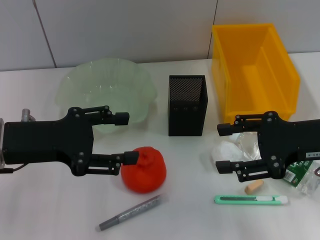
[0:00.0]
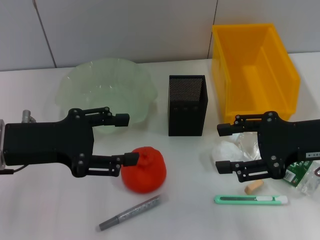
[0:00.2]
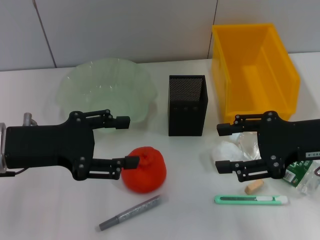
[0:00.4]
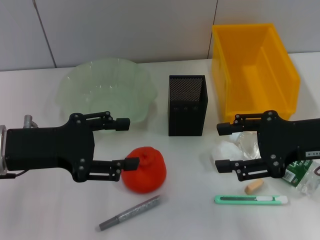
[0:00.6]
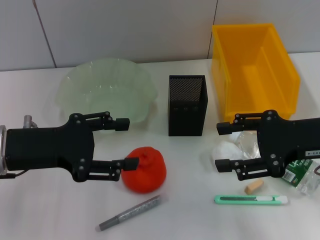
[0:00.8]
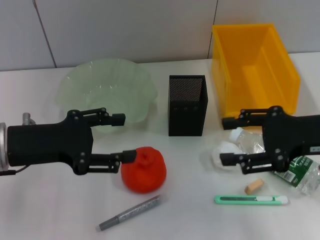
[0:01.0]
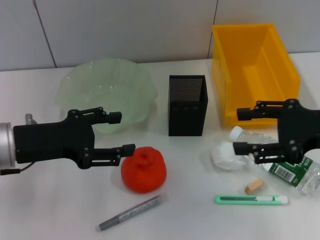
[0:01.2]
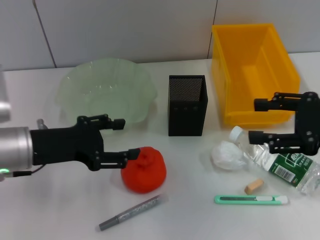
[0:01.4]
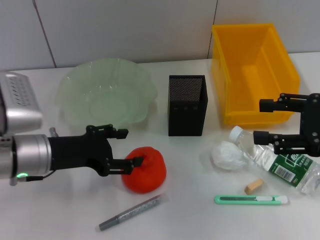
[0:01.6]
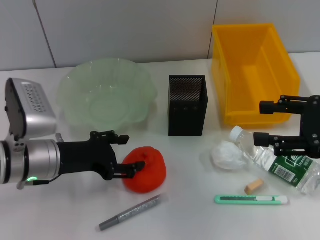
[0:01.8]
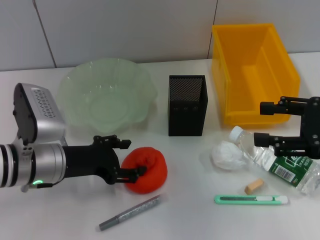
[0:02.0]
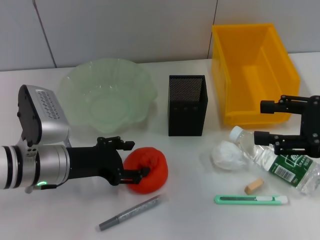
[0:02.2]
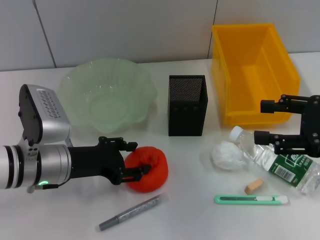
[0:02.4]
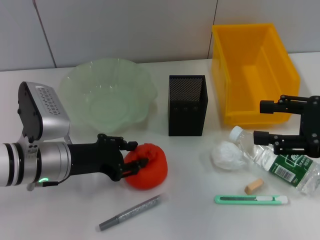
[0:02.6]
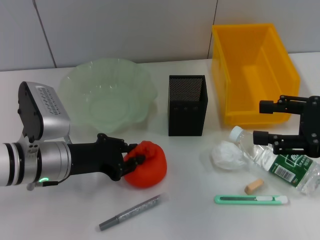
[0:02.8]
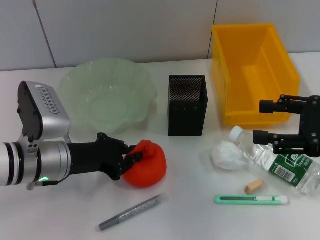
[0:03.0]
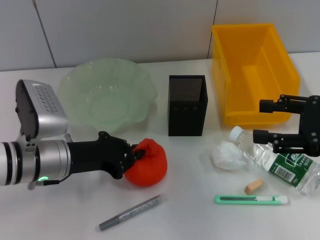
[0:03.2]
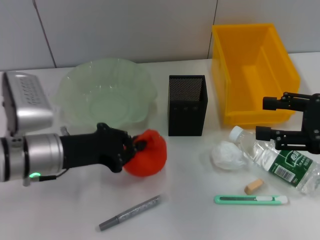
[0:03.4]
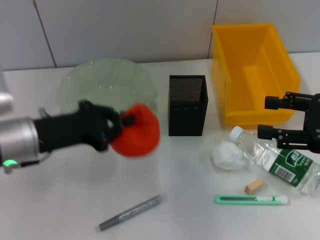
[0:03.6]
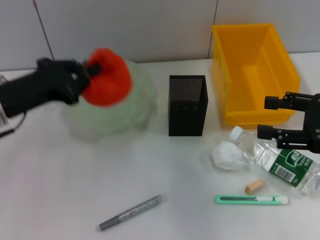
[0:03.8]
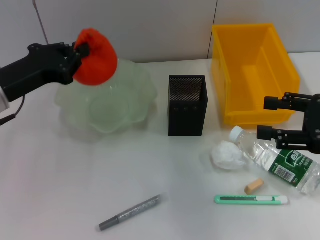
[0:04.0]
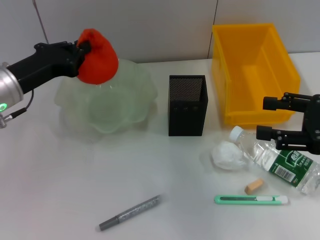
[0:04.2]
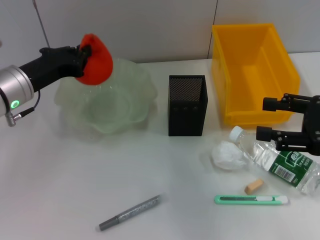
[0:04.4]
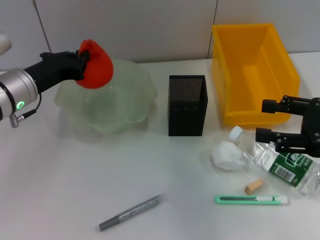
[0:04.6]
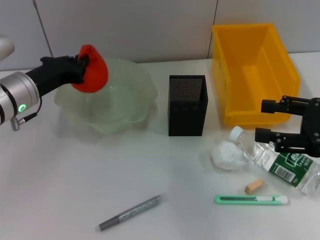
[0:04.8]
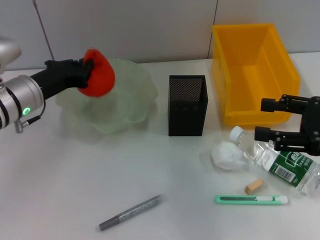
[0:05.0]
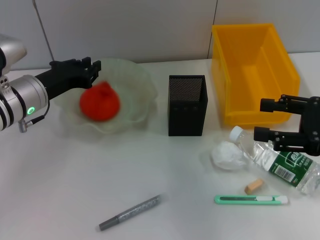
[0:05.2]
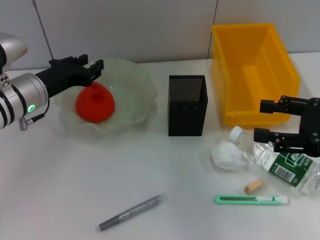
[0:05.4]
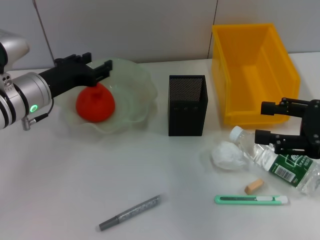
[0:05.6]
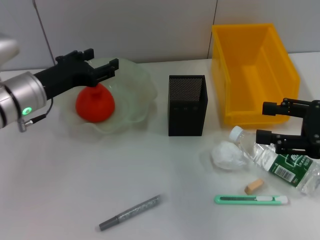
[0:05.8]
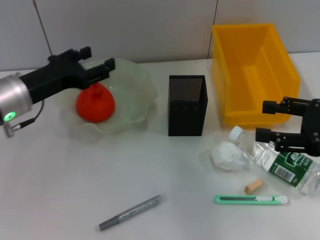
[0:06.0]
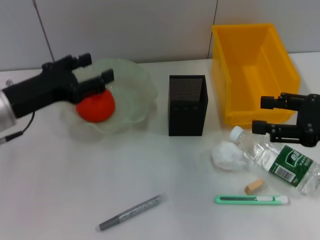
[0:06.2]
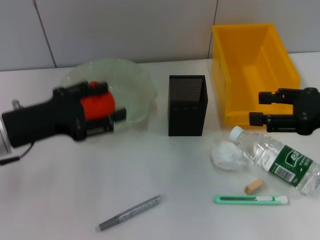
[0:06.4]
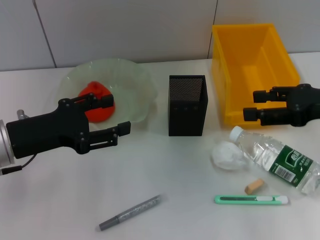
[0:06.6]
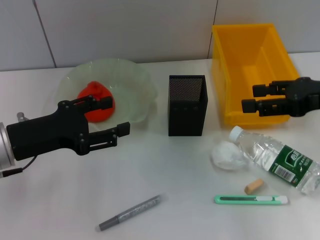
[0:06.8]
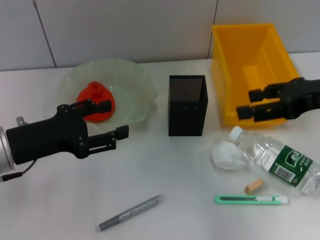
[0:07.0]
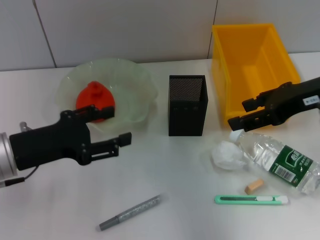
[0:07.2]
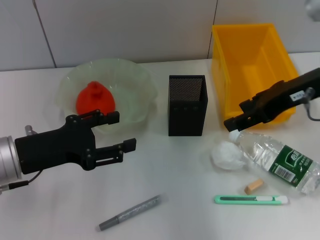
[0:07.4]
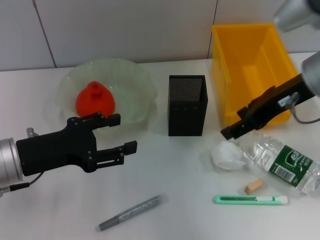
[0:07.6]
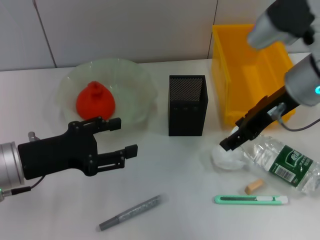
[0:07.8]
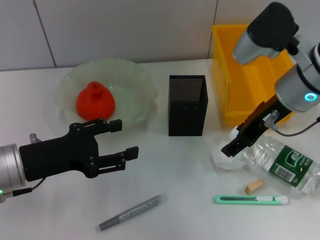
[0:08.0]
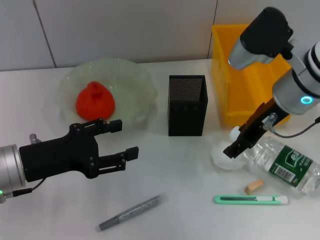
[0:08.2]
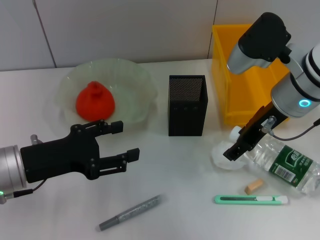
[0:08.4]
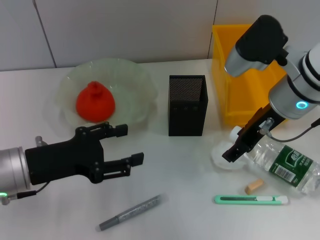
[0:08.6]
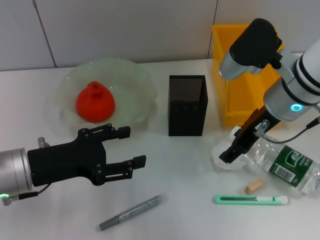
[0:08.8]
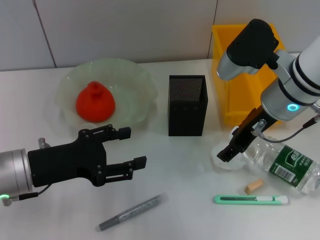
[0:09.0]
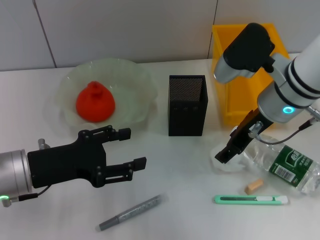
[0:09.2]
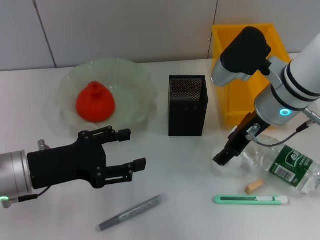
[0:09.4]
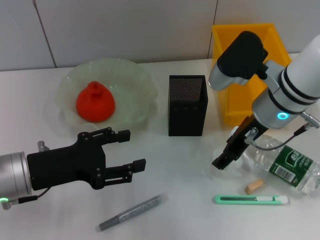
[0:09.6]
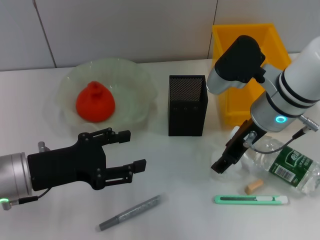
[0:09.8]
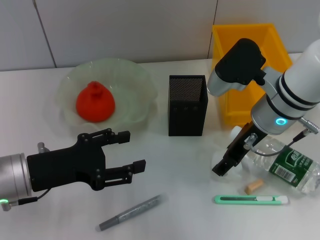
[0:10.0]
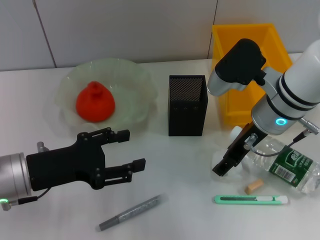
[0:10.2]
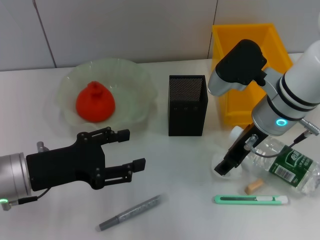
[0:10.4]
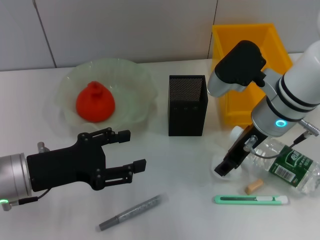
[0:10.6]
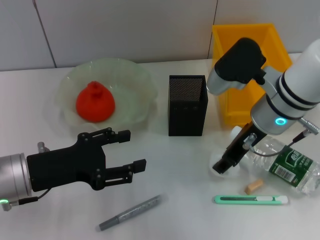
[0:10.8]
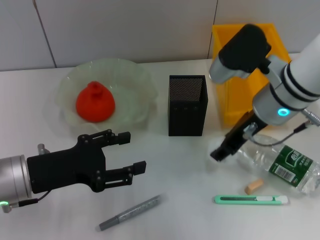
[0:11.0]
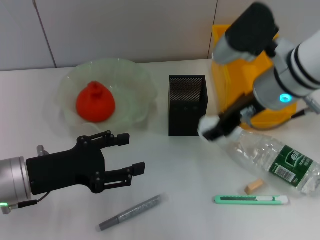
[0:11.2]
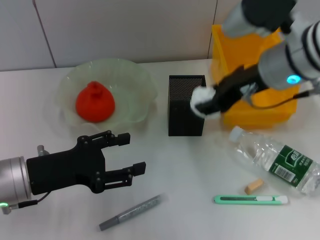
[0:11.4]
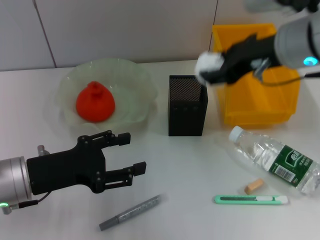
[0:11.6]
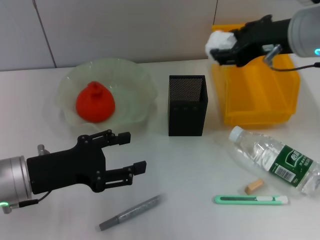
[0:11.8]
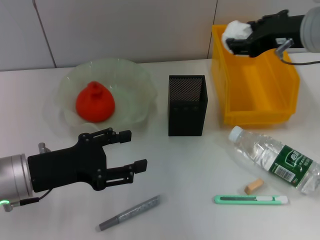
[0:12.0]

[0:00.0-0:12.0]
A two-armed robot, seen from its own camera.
Step, 0:00.0 to 0:02.8: Grab the orange with the left hand.
Step, 0:03.2 to 0:05.4: Place the orange into the fruit bowl with the left hand.
Step, 0:05.6 to 0:10.4: Grab the paper ball with the right hand.
0:00.0 to 0:01.6: The left gripper heads downward, covering some 5 cm. Meanwhile the right gripper moves about 5 cm.
0:01.6 to 0:03.0: The left gripper closes.
0:03.0 to 0:04.4: The left gripper goes approximately 5 cm forward.
0:04.4 to 0:06.0: The left gripper opens its fingers.
0:06.0 to 0:07.6: The left gripper heads backward, covering roughly 10 cm. The right gripper heads to the left, forward and upward, covering about 15 cm.
0:07.6 to 0:09.0: The right gripper ends up some 5 cm from where it was.
0:09.0 to 0:10.4: The grippers stay close to where they were, moving slightly.
0:10.4 to 0:12.0: The right gripper goes about 10 cm upward and to the right.

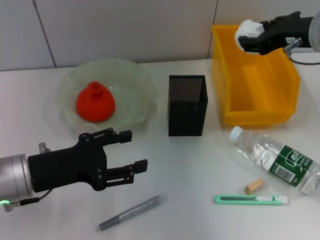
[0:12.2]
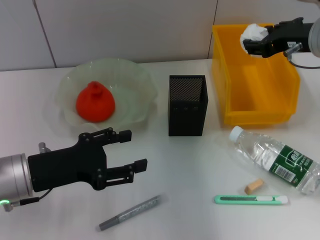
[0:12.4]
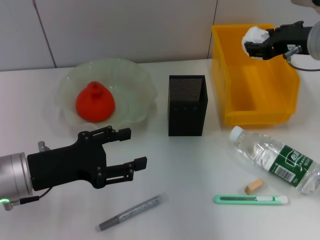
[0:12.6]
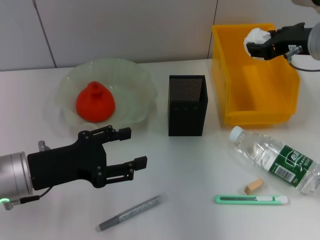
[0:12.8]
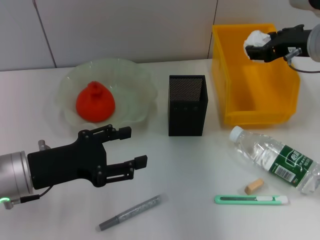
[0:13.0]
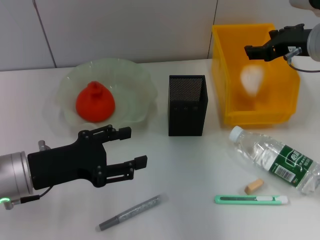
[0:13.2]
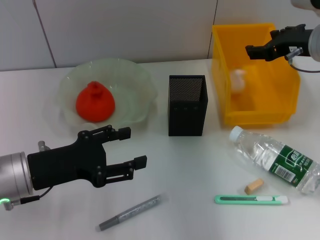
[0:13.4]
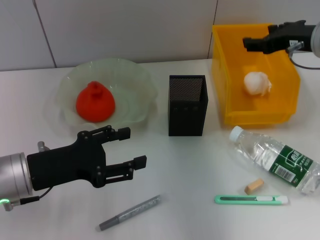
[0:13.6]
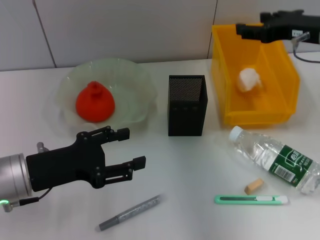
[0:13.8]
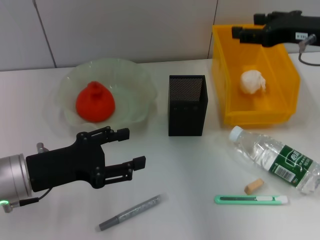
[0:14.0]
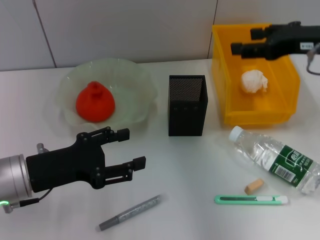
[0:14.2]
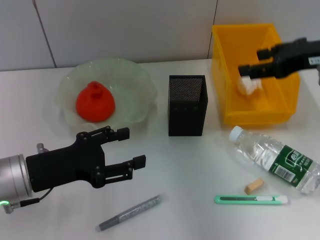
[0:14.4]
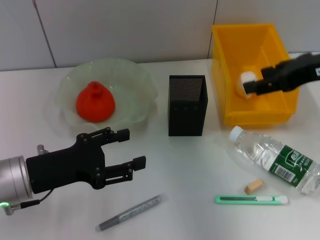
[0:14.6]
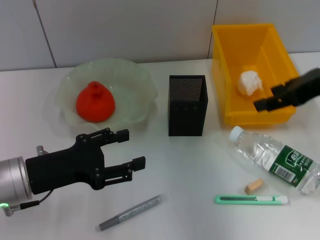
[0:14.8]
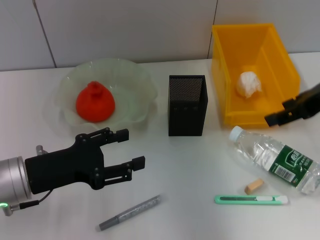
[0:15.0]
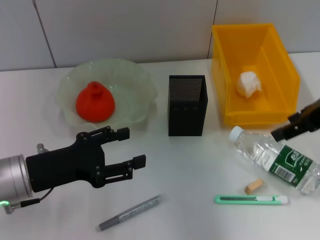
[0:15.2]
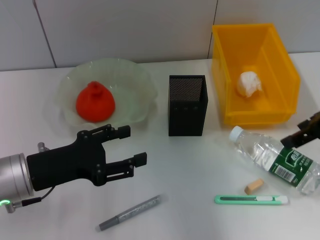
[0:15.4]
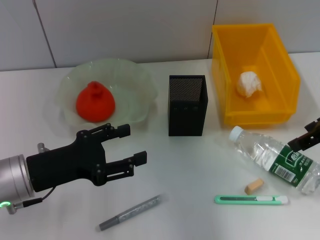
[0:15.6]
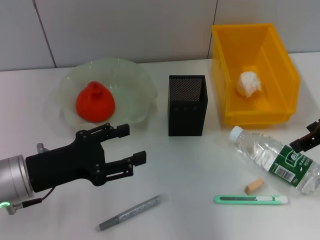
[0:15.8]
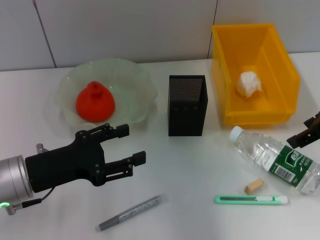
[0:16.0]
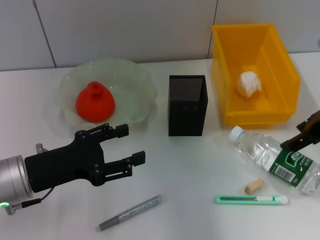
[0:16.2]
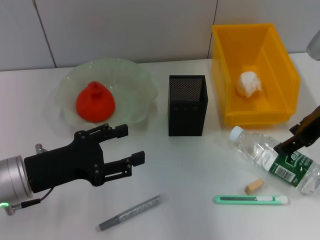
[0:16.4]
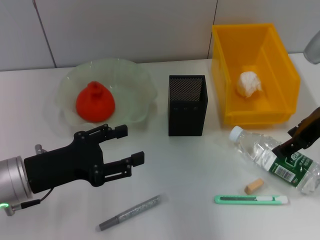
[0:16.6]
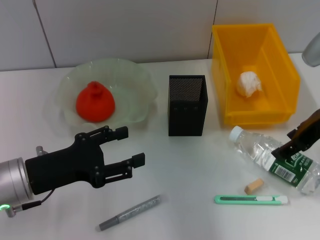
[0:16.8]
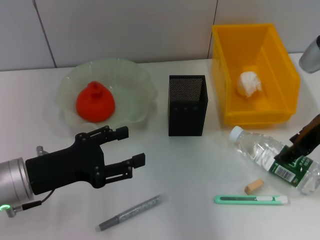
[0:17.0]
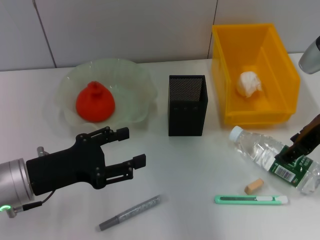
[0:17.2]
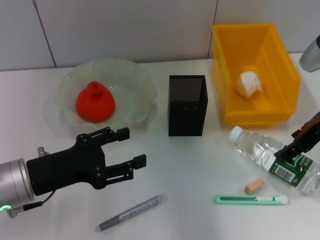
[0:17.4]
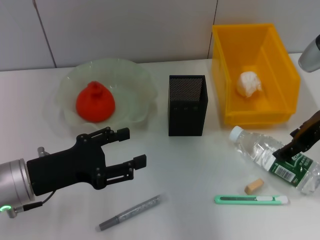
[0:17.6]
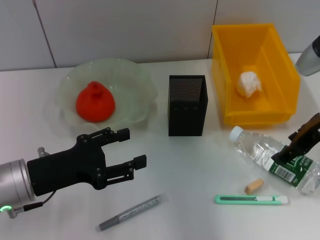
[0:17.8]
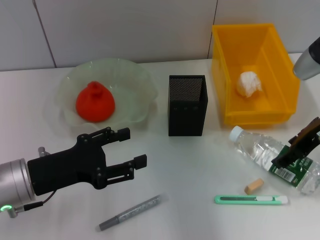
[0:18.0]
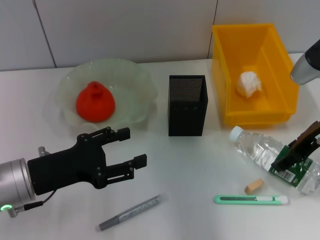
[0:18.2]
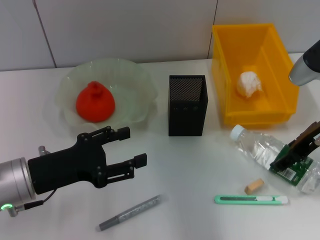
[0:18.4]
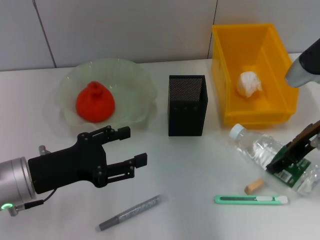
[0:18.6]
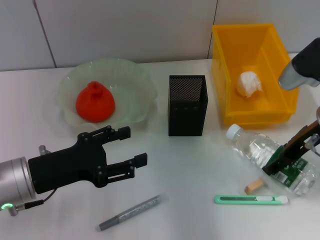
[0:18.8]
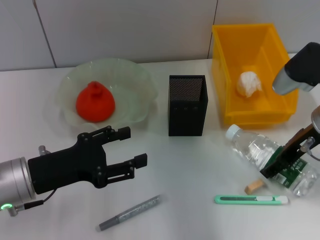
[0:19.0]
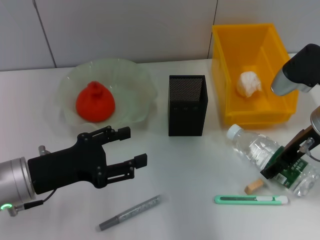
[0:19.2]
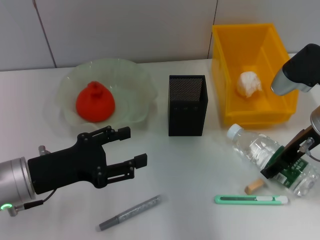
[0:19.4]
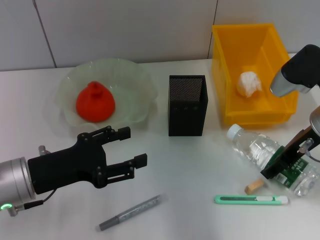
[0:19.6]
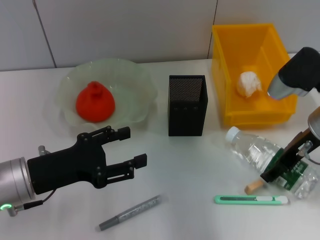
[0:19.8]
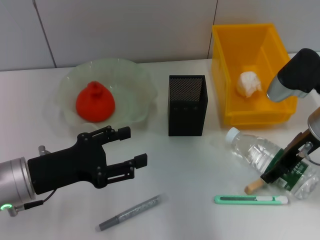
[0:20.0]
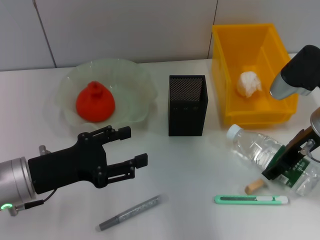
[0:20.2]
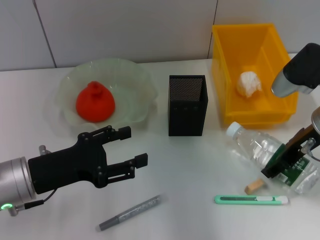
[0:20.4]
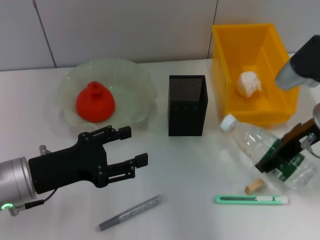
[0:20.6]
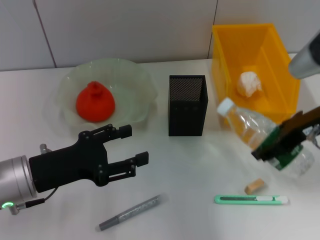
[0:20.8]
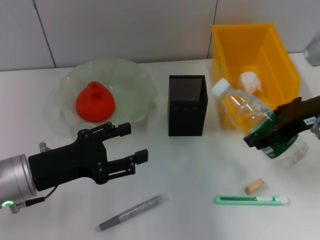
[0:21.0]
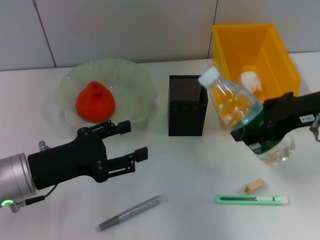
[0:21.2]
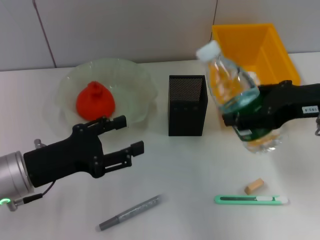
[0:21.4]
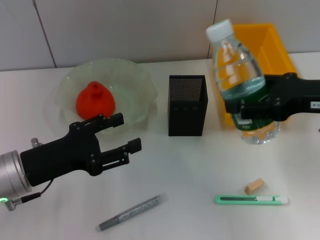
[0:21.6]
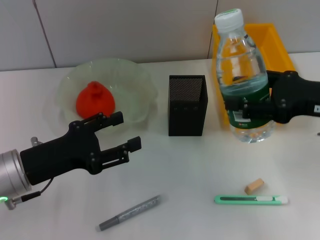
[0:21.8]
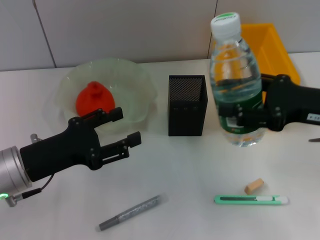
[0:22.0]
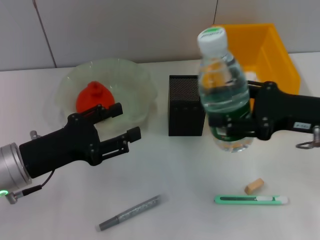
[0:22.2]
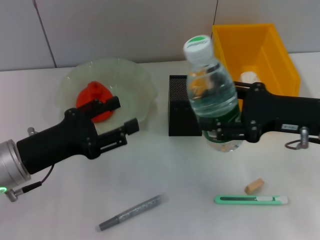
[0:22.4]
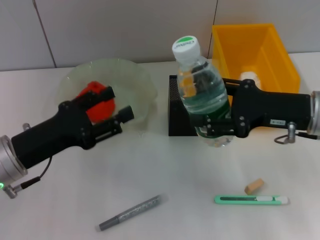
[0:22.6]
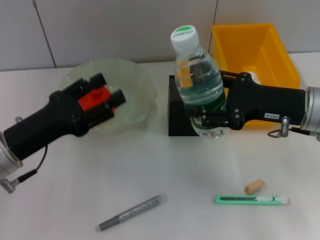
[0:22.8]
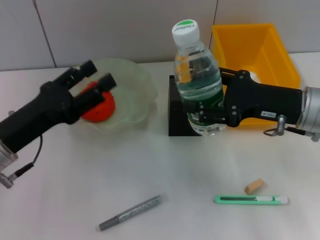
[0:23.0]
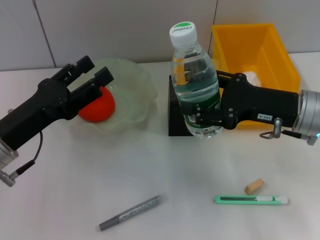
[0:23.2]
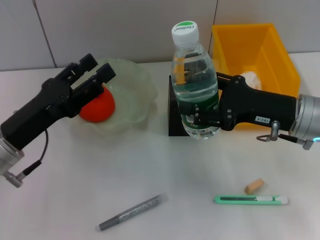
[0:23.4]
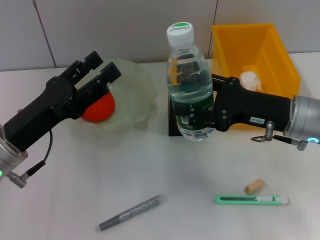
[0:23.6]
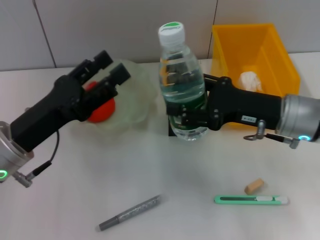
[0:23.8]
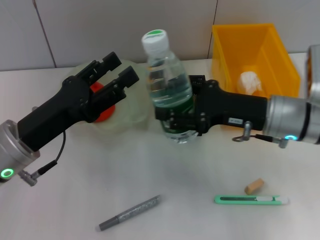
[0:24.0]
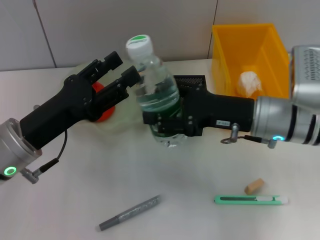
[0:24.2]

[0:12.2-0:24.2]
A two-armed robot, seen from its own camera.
Step, 0:13.6 to 0:19.4: Grab the water bottle with the right hand.
0:12.2 to 0:13.8: There are only small adjustments of the grippers.
0:13.8 to 0:15.2: The right gripper moves backward, approximately 5 cm.
0:15.2 to 0:16.6: There are only small adjustments of the grippers.
0:16.6 to 0:19.8: The grippers stay close to where they were, moving slightly.
0:19.8 to 0:21.2: The right gripper heads upward, covering some 5 cm.
0:21.2 to 0:22.6: The right gripper moves downward, some 5 cm.
0:22.6 to 0:24.2: The right gripper heads to the left, covering about 5 cm.
